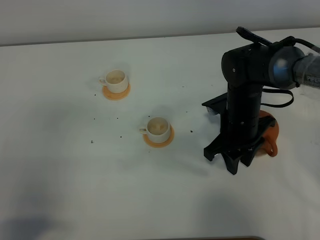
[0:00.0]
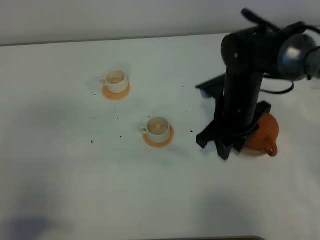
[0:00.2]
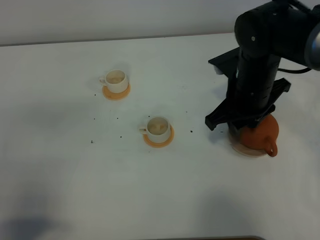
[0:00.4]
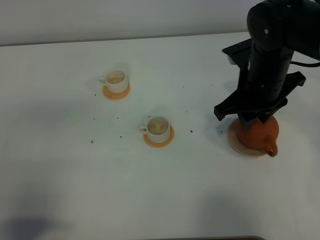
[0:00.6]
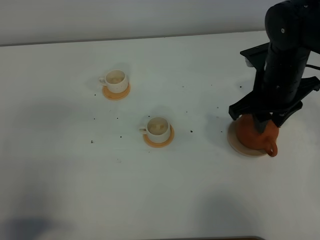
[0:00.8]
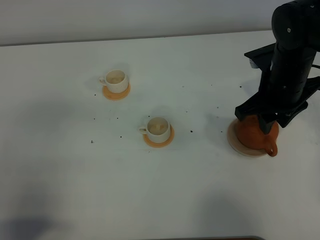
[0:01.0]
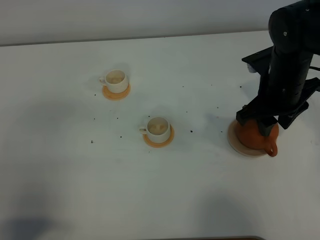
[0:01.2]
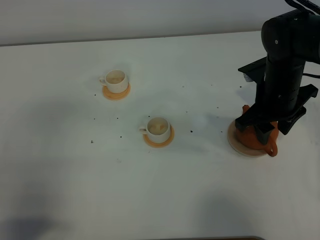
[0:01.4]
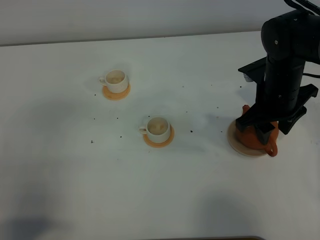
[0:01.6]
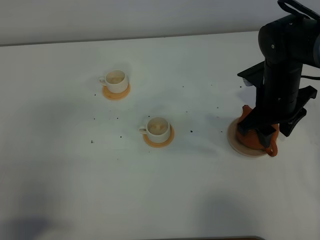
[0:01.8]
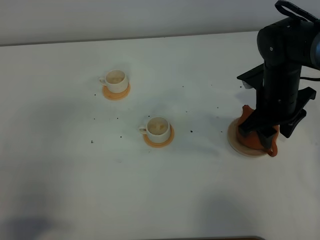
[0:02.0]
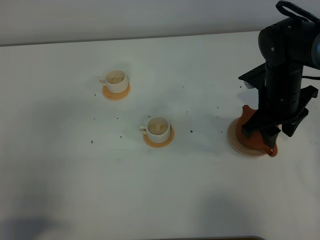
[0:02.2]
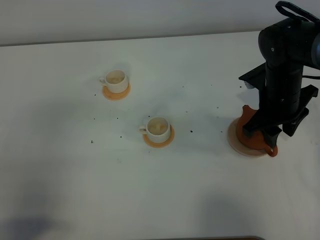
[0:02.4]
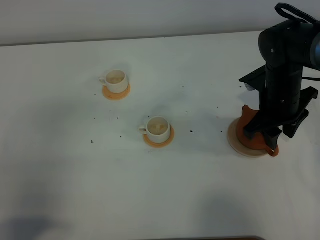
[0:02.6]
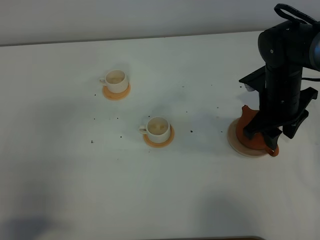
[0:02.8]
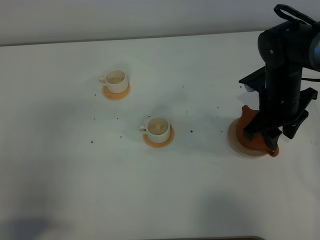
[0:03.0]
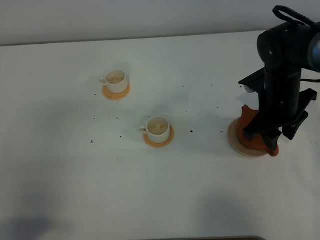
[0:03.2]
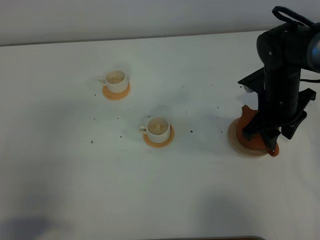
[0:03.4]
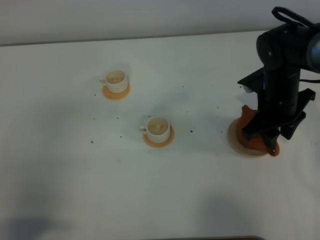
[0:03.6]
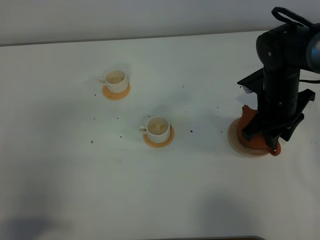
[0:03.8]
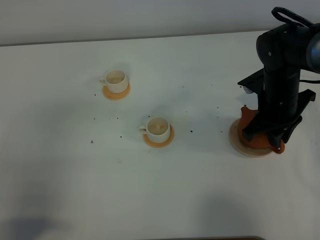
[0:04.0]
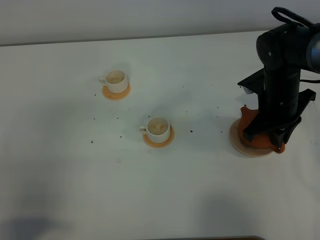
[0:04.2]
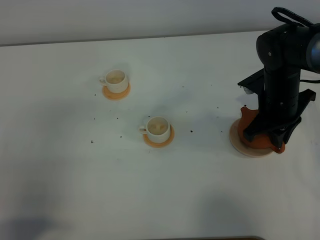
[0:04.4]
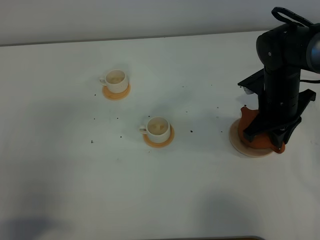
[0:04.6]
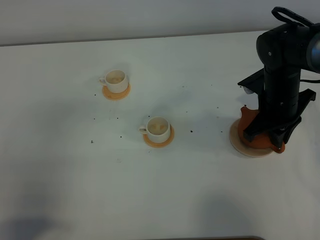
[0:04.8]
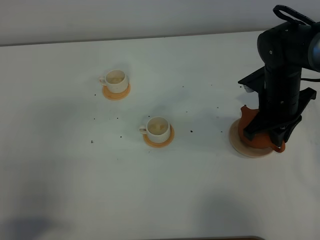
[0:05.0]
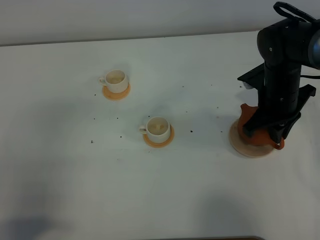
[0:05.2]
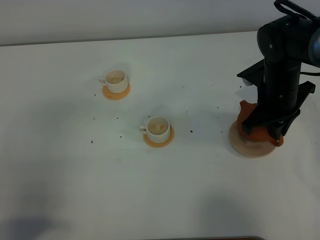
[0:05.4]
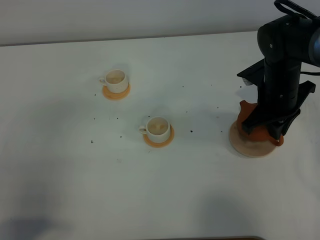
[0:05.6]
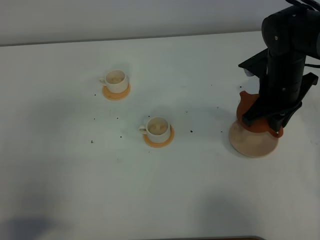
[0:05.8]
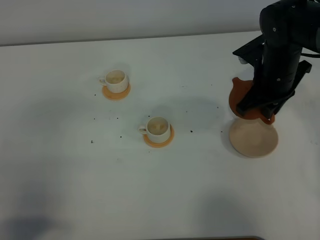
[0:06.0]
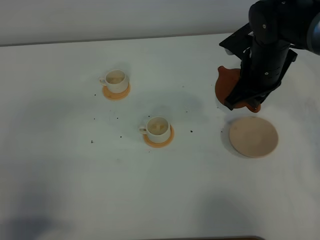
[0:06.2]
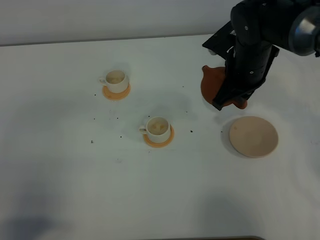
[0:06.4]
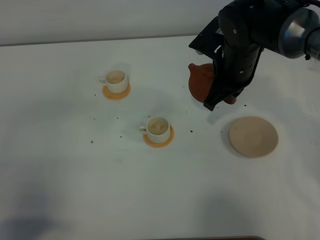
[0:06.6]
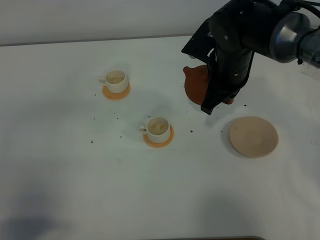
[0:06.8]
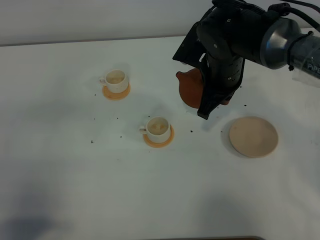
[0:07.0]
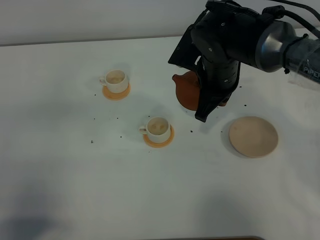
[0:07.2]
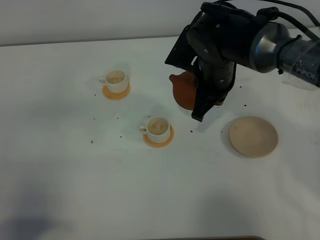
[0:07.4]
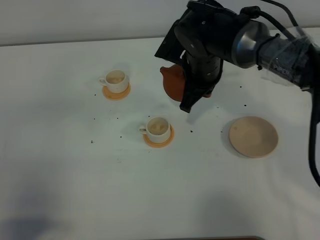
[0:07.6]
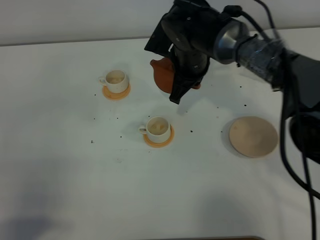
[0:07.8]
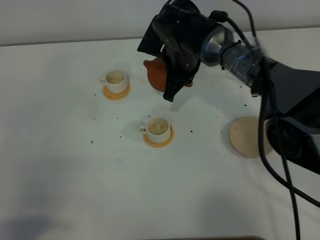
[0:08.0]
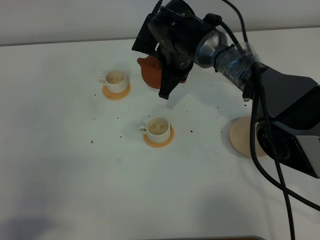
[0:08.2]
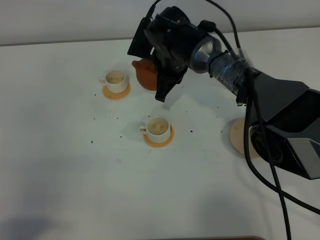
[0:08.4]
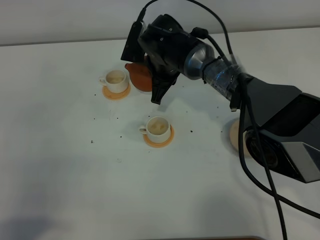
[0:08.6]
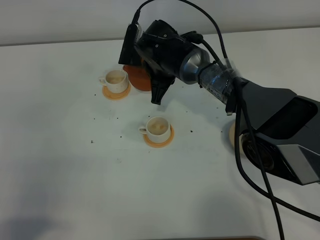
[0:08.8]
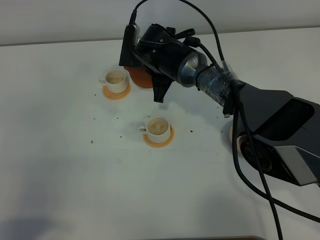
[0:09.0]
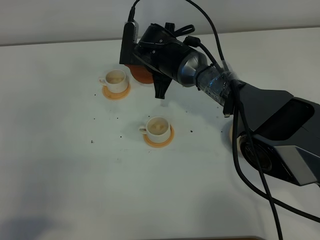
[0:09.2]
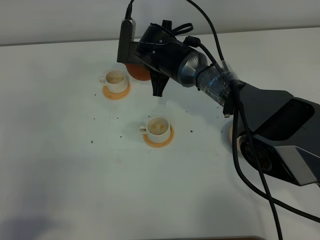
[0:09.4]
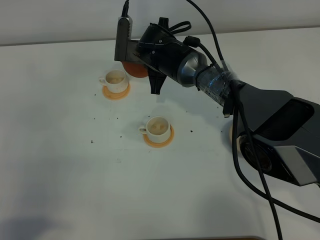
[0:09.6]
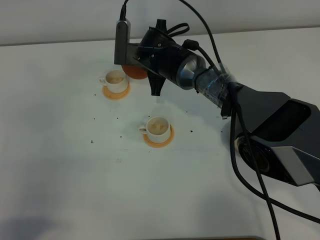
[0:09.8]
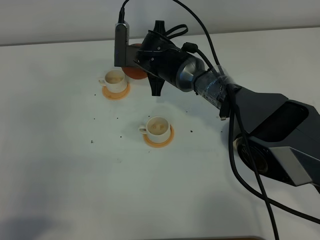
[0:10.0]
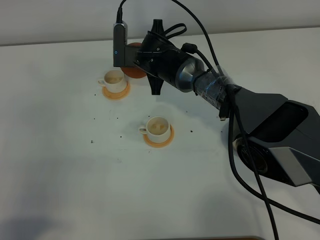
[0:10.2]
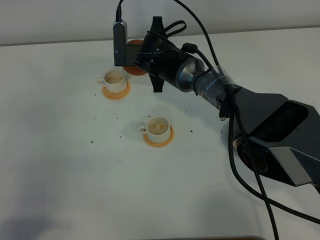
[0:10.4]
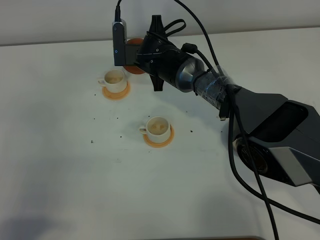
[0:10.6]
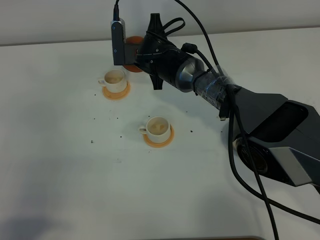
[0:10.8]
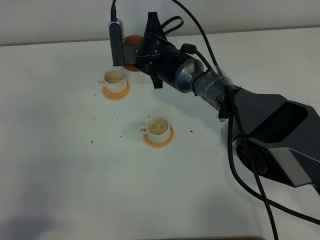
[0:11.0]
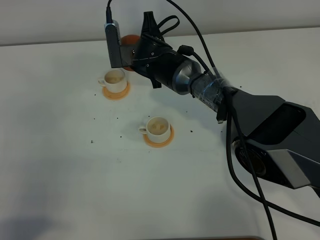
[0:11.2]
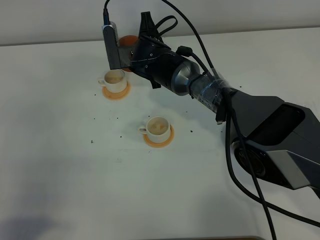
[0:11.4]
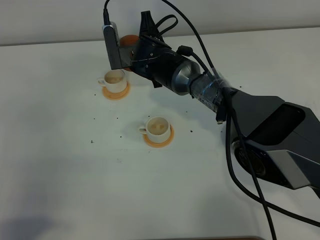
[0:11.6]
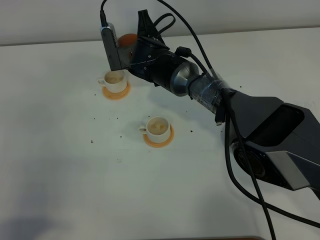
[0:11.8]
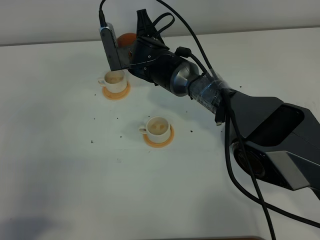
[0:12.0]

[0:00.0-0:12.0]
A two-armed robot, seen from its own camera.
Task of the whole recording: grasp the brown teapot and pour the tea into the two white teacups one by one, put the brown teapot back in its original place.
Step, 0:00.0 to 0:05.6: Pick up the teapot with the right gripper.
0:00.0 to 0:01.6: The right gripper heads to the right and upward, covering some 10 cm.
0:01.6 to 0:03.0: The grippers make only small movements.
0:03.0 to 0:04.4: The right gripper closes.
0:04.4 to 0:06.0: The right gripper moves some 5 cm.
0:06.0 to 0:07.6: The right gripper goes approximately 15 cm to the left.
0:07.6 to 0:09.0: The right gripper moves to the left and downward, about 10 cm.
0:09.0 to 0:10.4: The grippers make only small movements.
0:10.4 to 0:12.0: The grippers stay close to where they were, moving slightly.

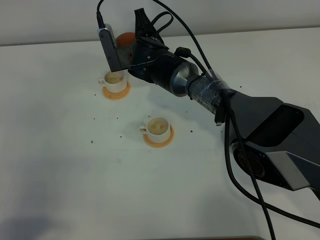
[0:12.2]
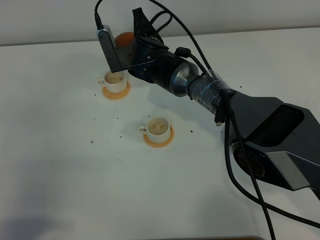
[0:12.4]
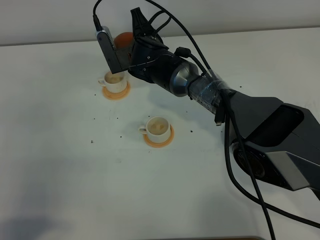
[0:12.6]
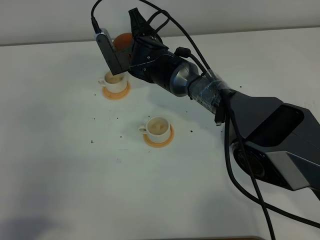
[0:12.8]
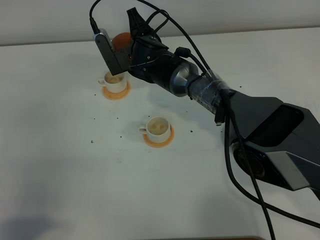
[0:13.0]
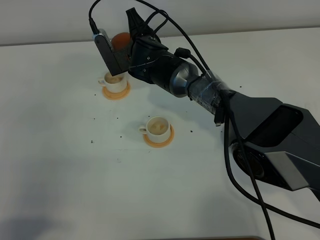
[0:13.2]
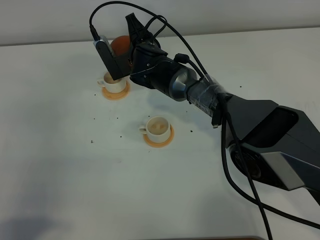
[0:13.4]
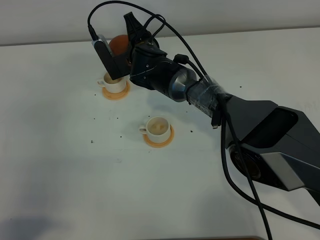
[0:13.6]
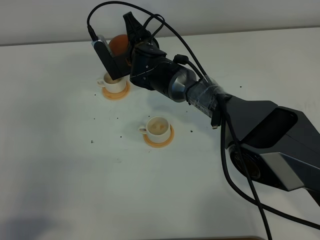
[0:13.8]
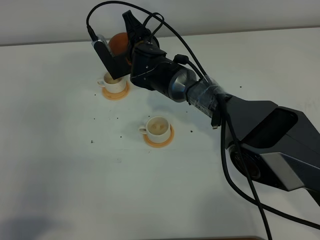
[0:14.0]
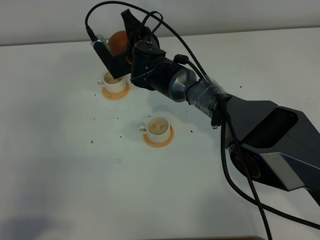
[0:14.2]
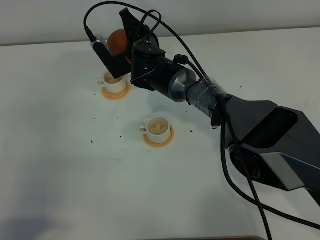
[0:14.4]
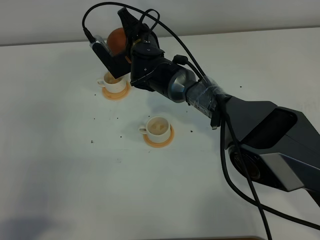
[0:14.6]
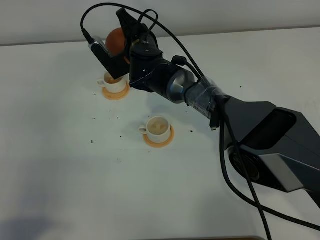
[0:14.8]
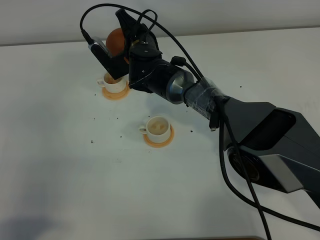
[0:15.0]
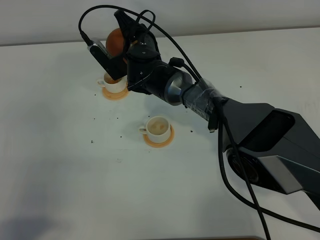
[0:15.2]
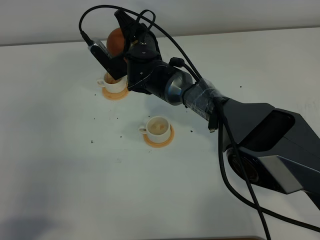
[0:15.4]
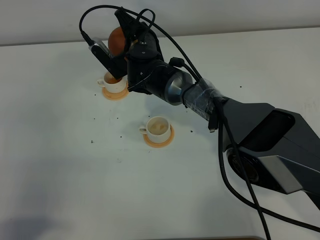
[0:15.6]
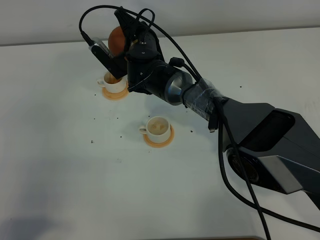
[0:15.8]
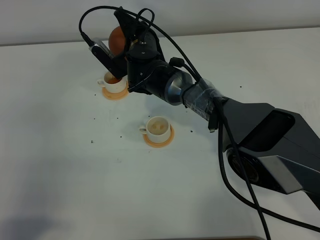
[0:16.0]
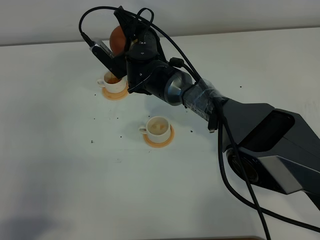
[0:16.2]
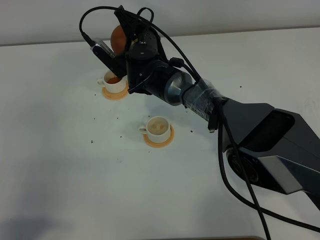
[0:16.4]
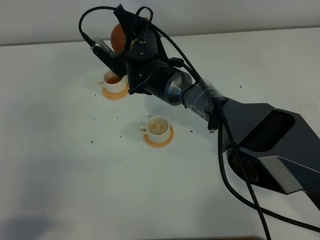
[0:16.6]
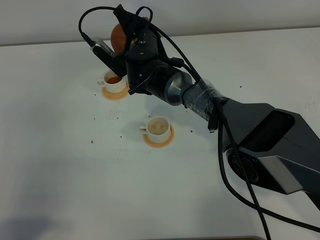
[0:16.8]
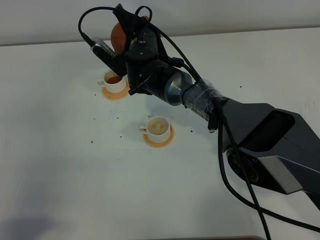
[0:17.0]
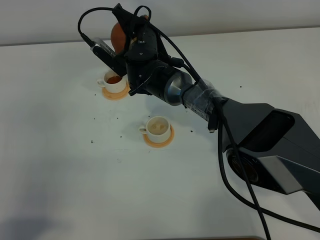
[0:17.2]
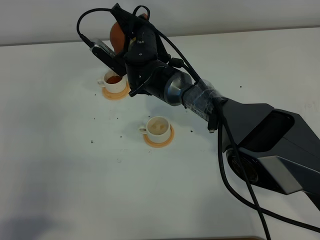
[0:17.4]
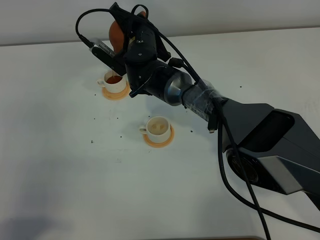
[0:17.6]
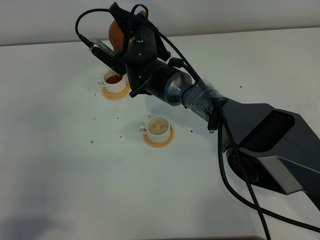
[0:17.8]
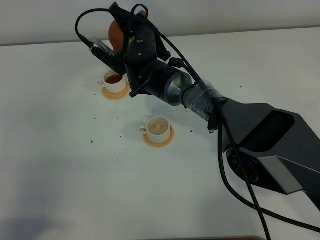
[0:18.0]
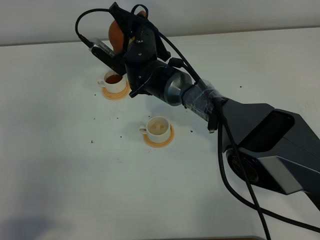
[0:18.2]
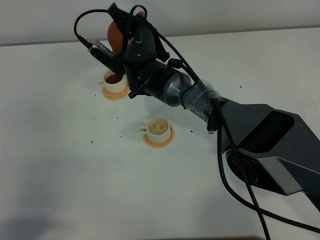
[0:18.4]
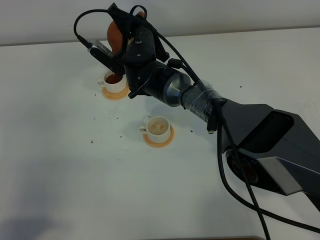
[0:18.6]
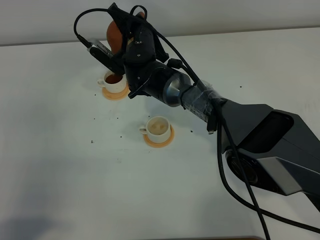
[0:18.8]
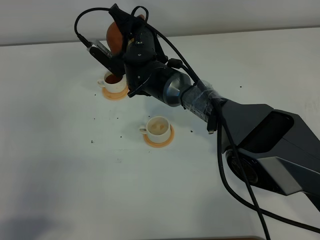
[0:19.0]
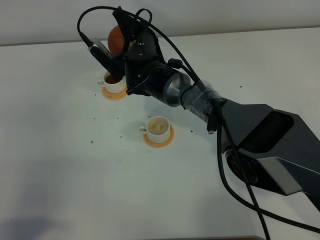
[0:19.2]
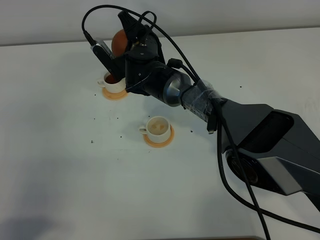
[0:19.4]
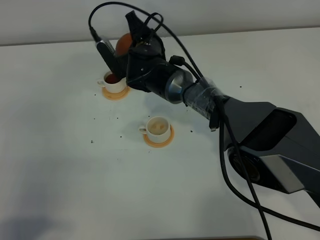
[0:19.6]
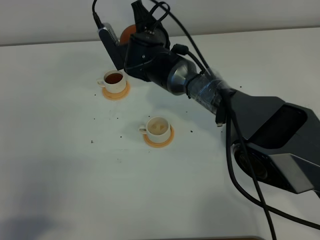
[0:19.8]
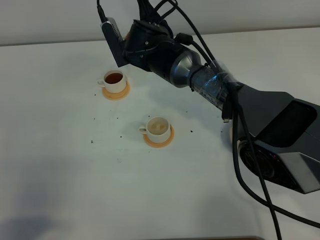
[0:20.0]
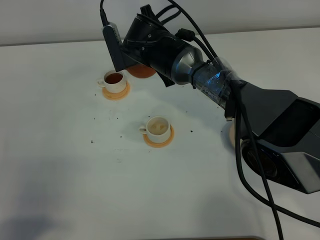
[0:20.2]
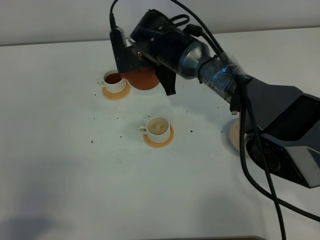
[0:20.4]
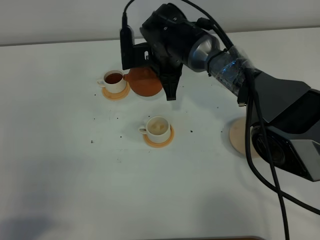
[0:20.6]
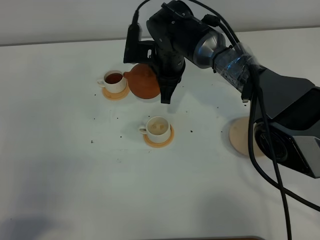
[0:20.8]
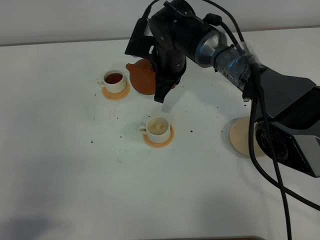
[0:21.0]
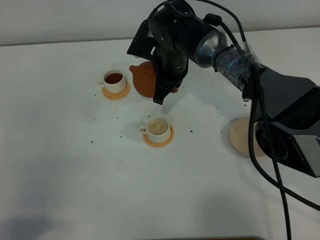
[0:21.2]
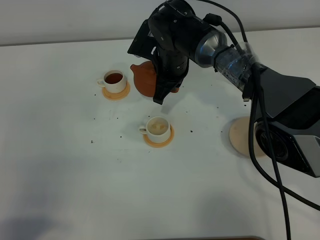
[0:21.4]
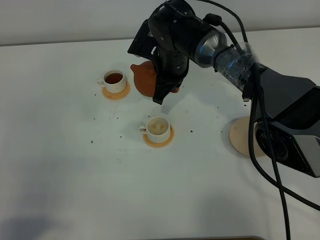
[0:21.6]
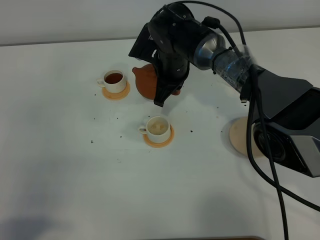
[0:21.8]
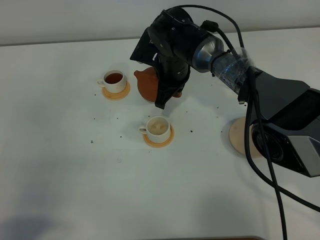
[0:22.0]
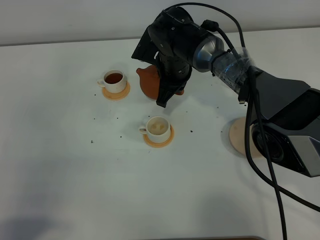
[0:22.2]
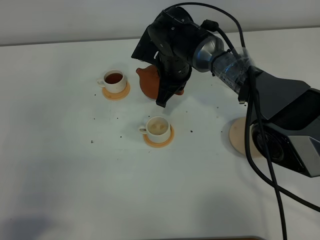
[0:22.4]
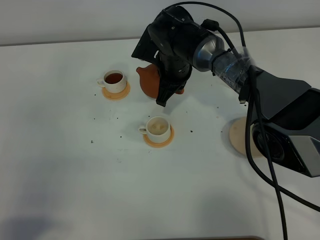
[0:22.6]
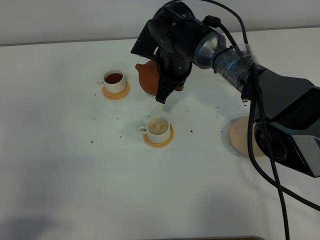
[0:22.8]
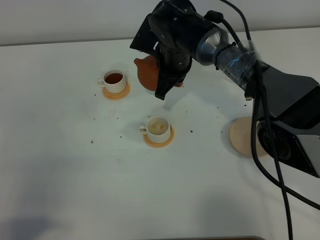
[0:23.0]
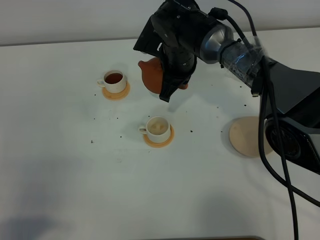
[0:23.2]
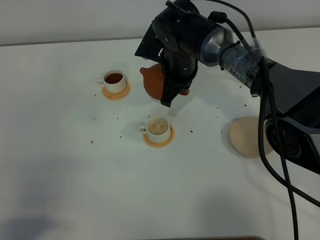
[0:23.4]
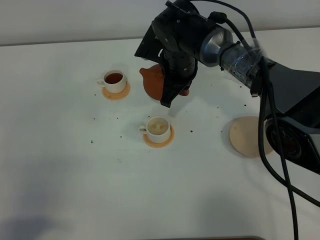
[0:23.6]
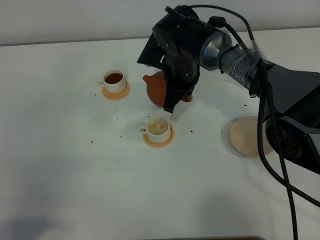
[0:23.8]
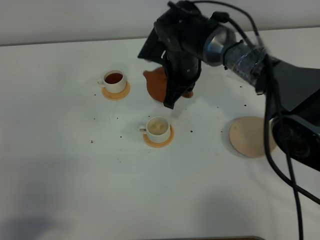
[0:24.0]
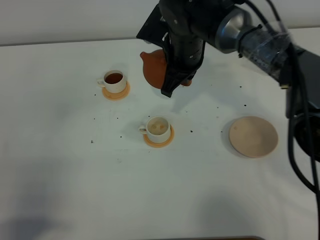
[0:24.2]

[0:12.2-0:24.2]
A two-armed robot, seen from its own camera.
Task of the whole recording: grasp the brown teapot and pour the tea into the two white teacups one by one, put the brown teapot back in its original place.
Step, 0:12.2 to 0:19.8: Pour tea into the teacup with the right gripper.
0:12.2 to 0:13.8: The grippers make only small movements.
0:13.8 to 0:16.6: The grippers make only small movements.
0:16.6 to 0:18.2: There are only small adjustments of the grippers.
0:21.2 to 0:22.6: There are only small adjustments of the grippers.
0:22.6 to 0:24.2: The right gripper travels upward by about 5 cm.
